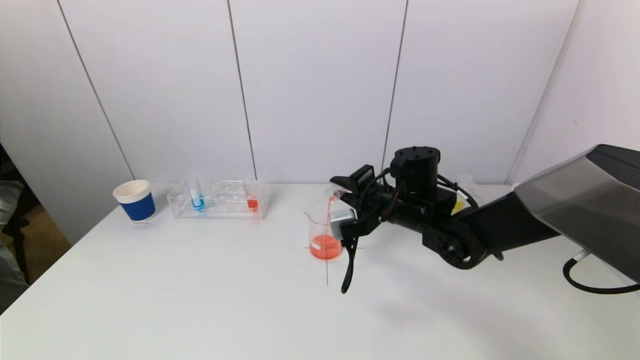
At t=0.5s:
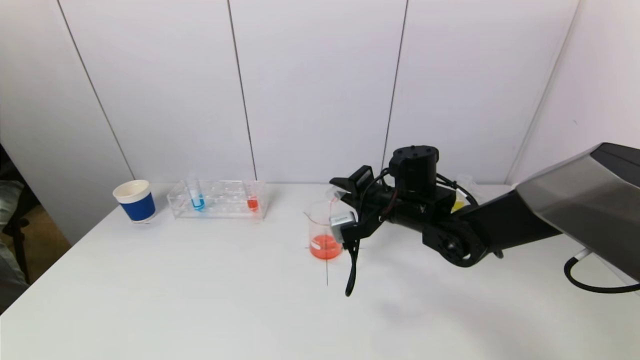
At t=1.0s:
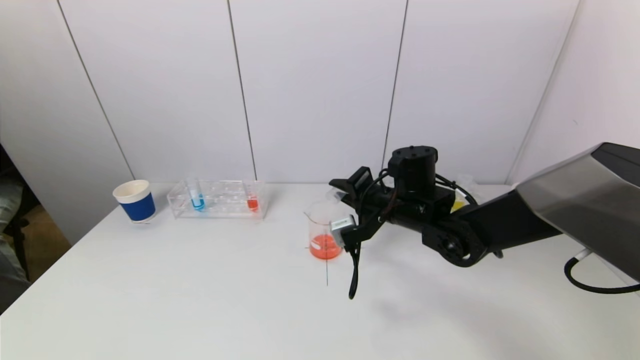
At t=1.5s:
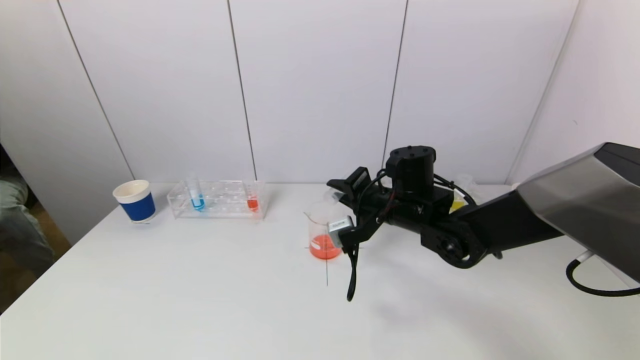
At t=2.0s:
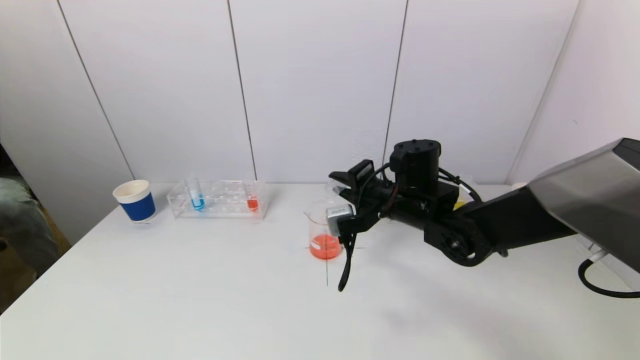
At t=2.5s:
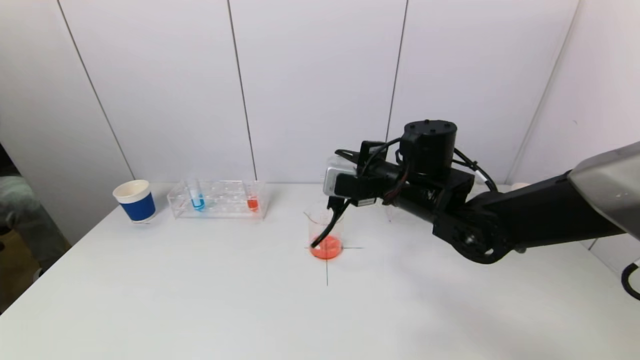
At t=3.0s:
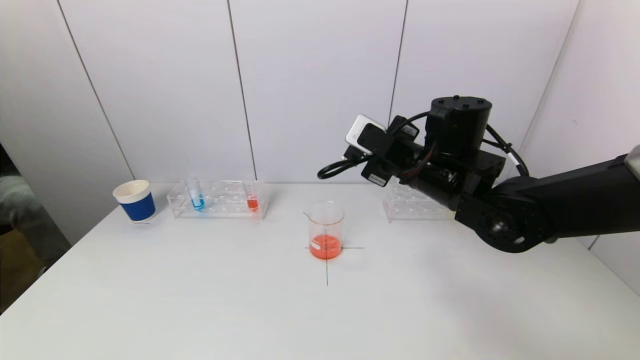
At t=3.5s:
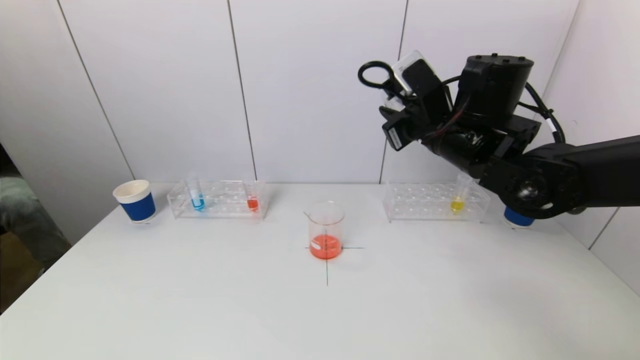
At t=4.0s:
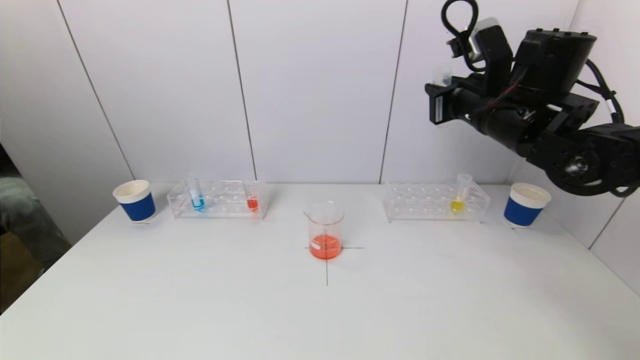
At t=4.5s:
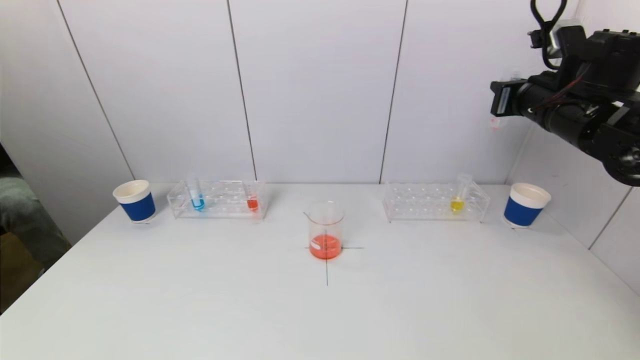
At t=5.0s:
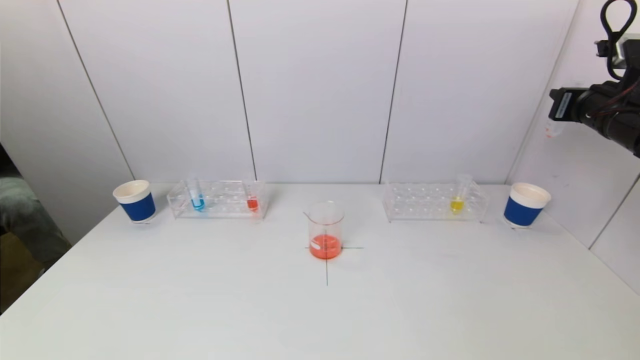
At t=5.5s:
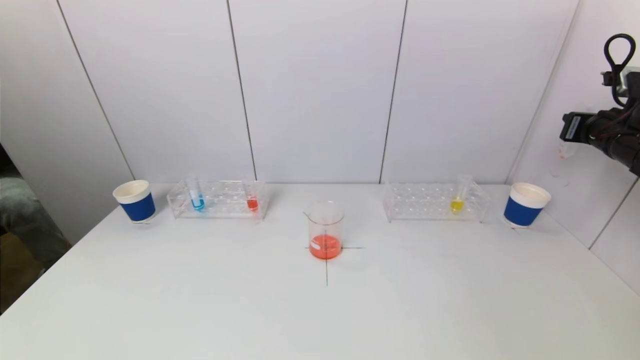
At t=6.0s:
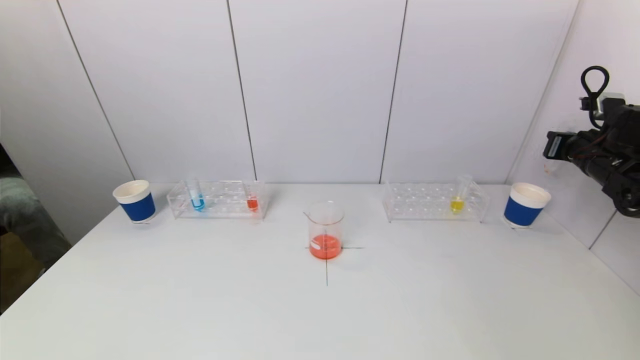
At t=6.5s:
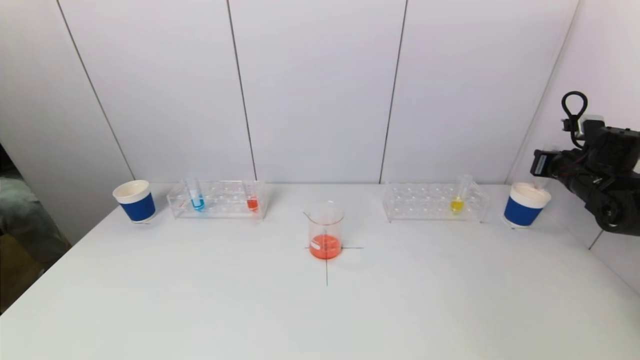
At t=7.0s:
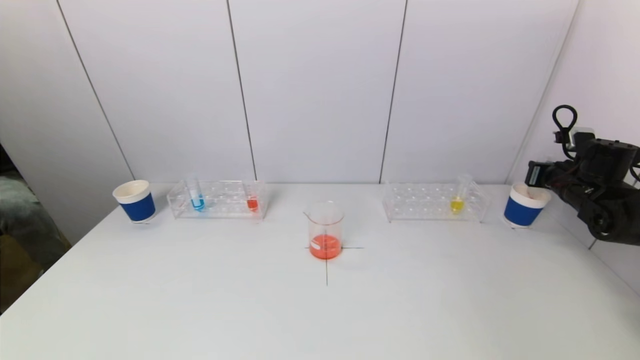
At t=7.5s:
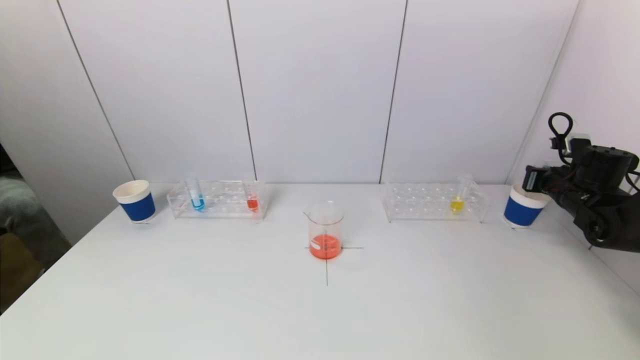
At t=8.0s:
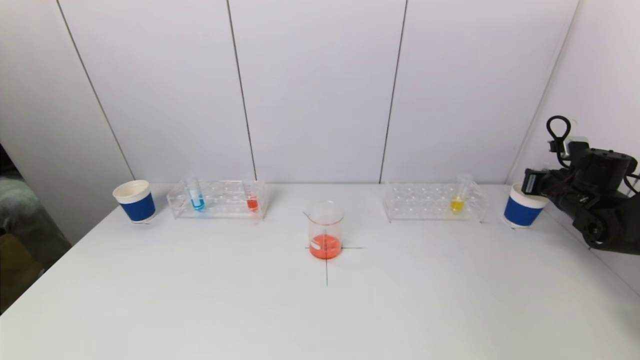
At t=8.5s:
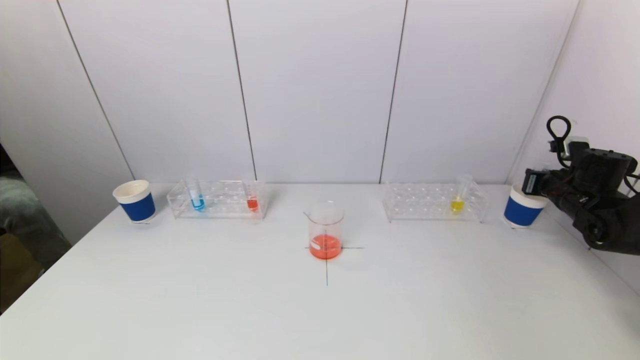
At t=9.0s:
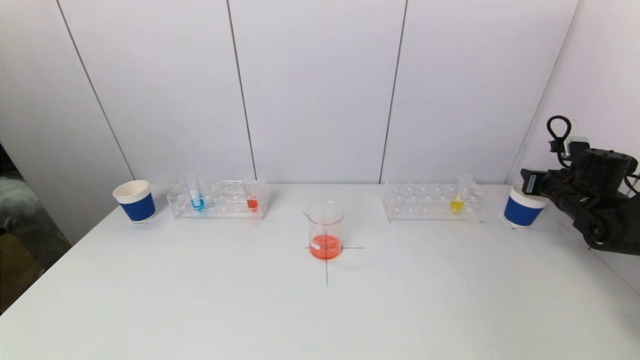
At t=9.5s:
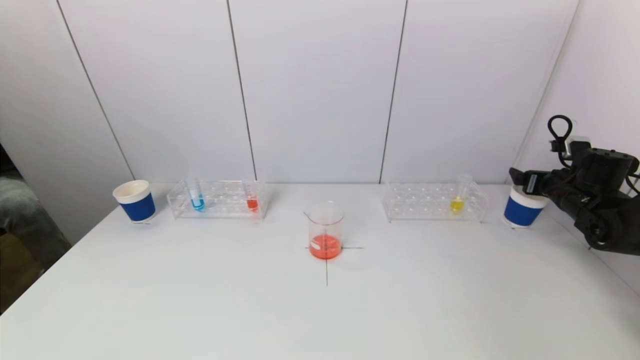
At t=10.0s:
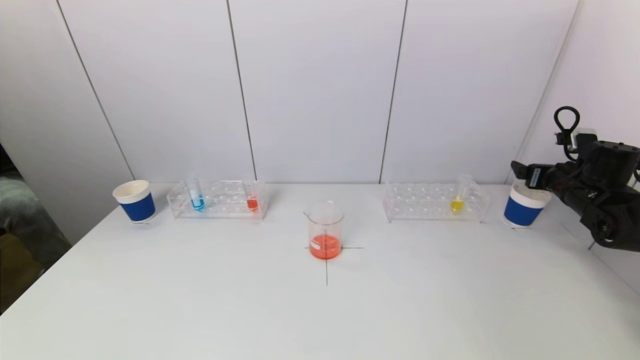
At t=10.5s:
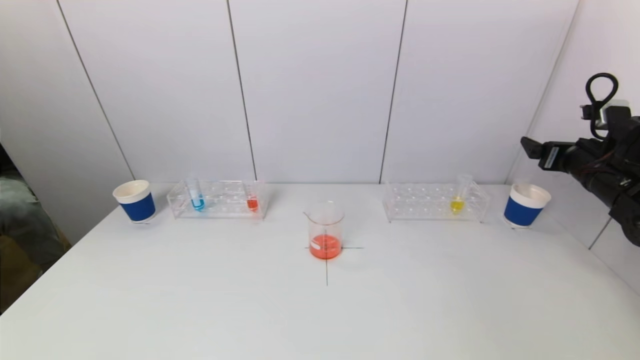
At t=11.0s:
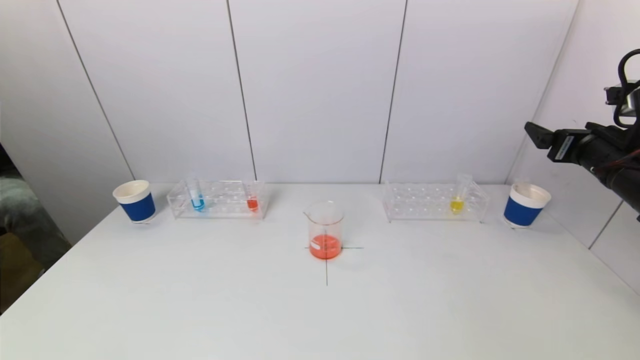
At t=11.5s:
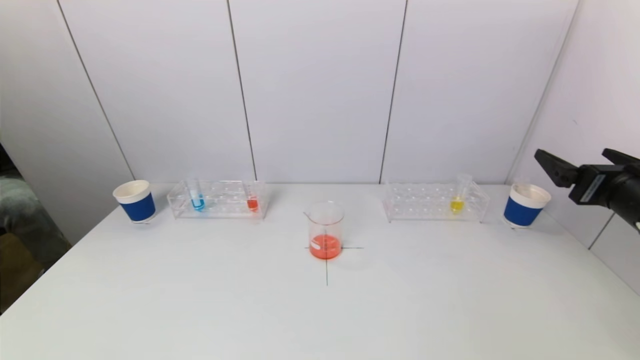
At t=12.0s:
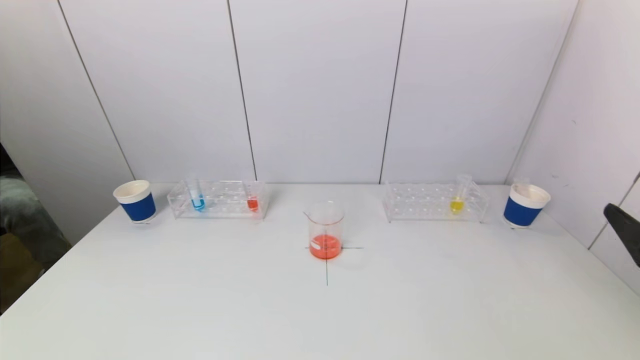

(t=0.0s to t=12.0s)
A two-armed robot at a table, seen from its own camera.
Task of the whole recording: pick up a test tube with pigment on left test tube rack and a test tube with pigment on right test tube rack by grippers and pour them into the beaker.
Step, t=2.0s - t=9.0s: Place the test tube into the paper cup with the right gripper.
t=0.0s - t=2.0s: The grippers make only small movements.
t=2.0s - t=4.0s: The right gripper shifts approximately 15 cm upward and to the right.
t=4.0s - t=6.0s: The right gripper travels to the right and downward by roughly 25 cm.
t=6.0s - t=8.0s: The right gripper shifts about 10 cm downward.
t=8.0s - t=10.0s: The right gripper opens.
t=10.0s - t=12.0s: The right gripper travels backward by roughly 30 cm.

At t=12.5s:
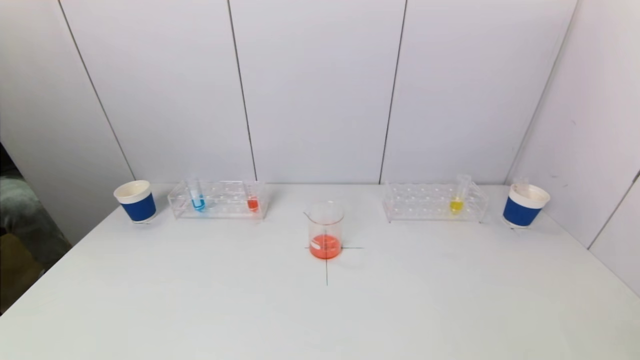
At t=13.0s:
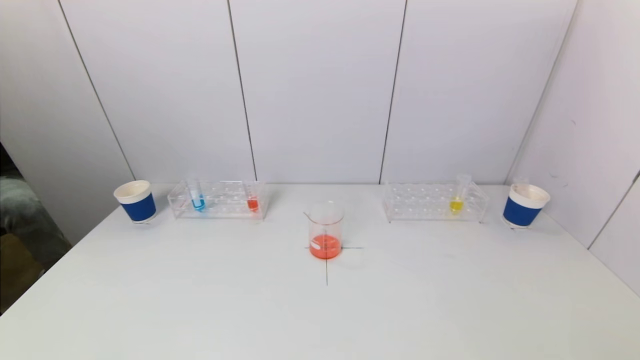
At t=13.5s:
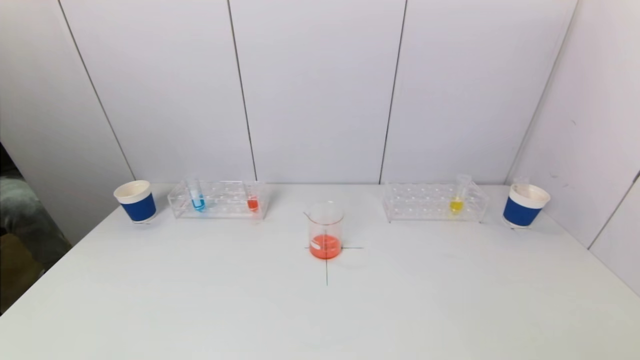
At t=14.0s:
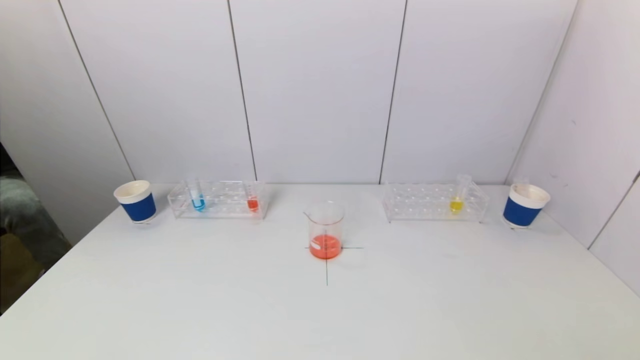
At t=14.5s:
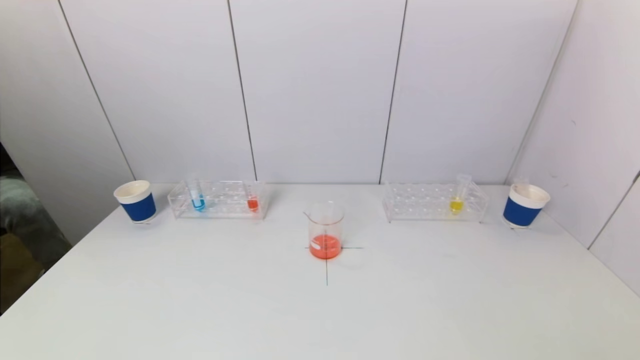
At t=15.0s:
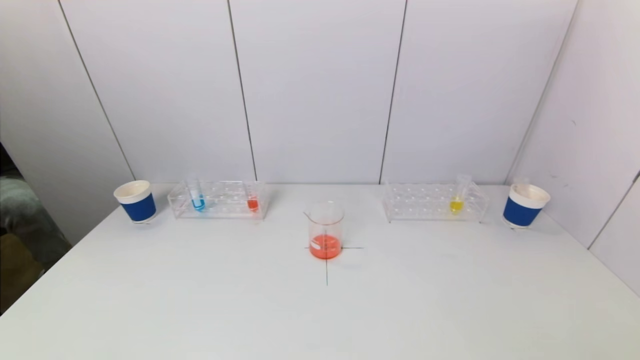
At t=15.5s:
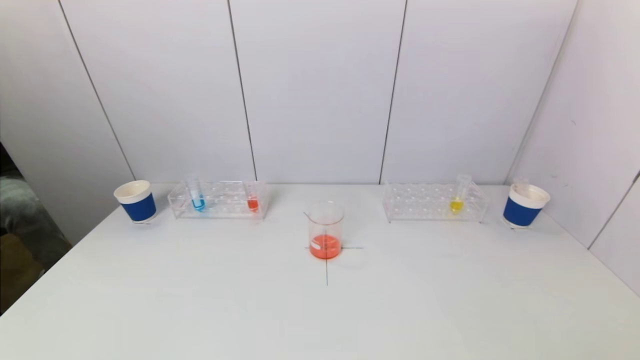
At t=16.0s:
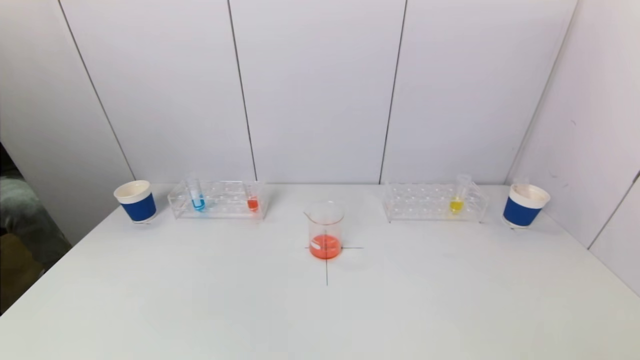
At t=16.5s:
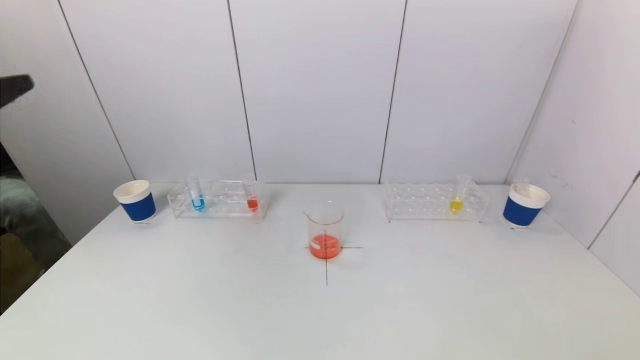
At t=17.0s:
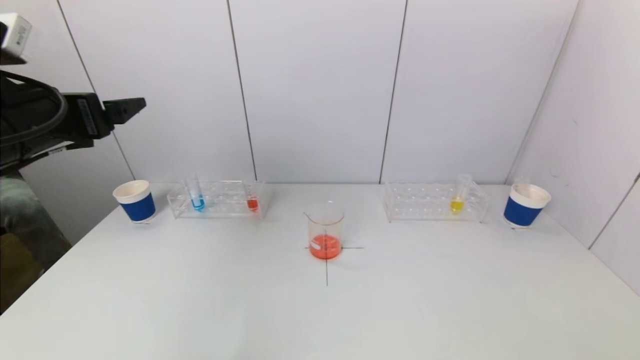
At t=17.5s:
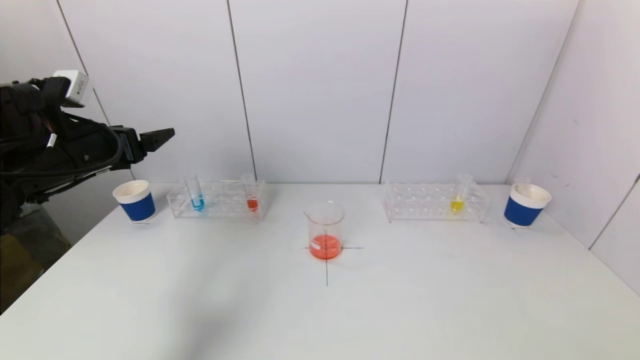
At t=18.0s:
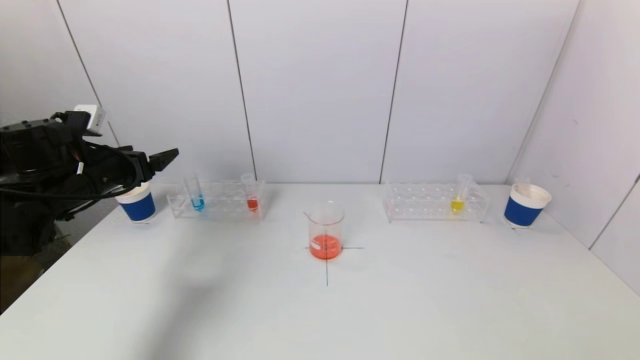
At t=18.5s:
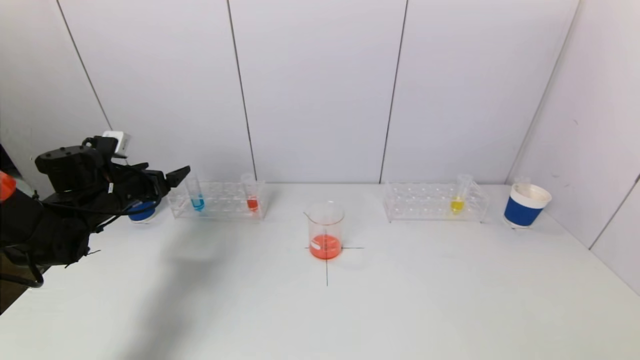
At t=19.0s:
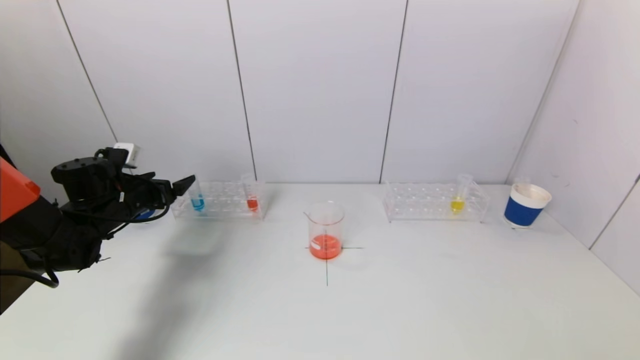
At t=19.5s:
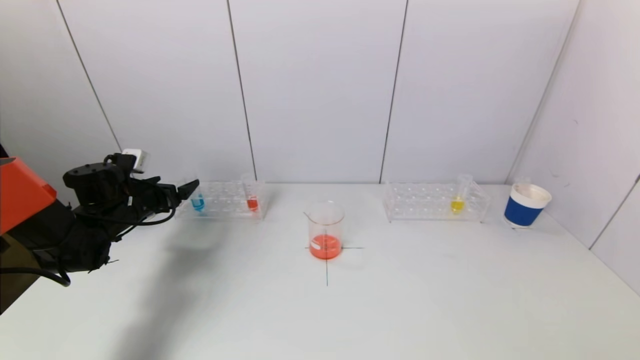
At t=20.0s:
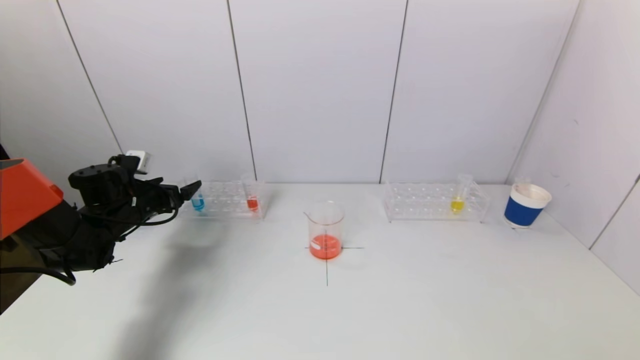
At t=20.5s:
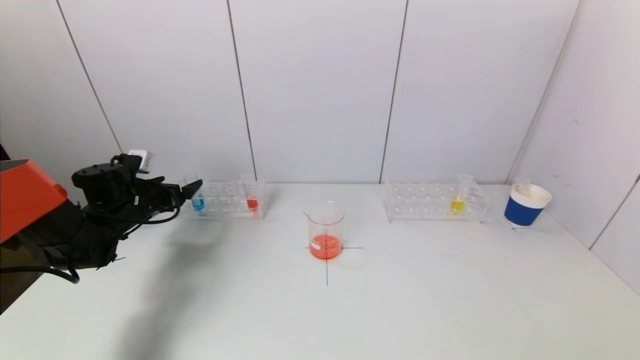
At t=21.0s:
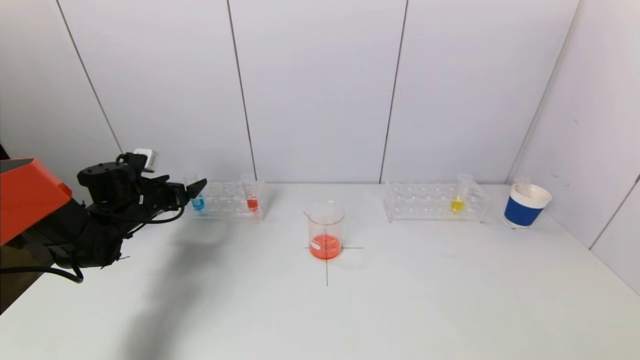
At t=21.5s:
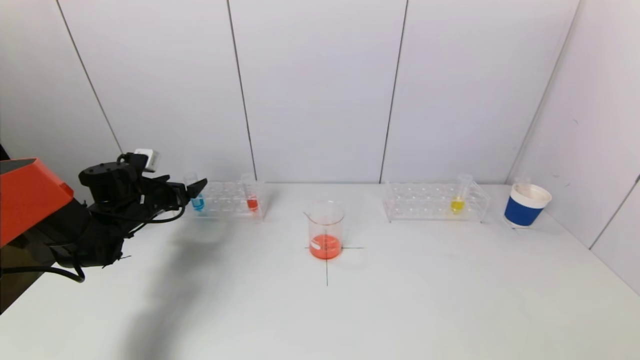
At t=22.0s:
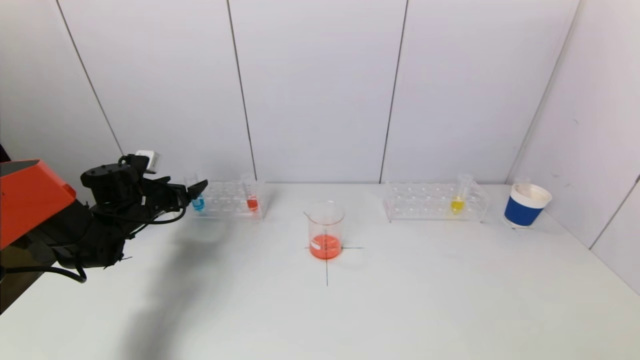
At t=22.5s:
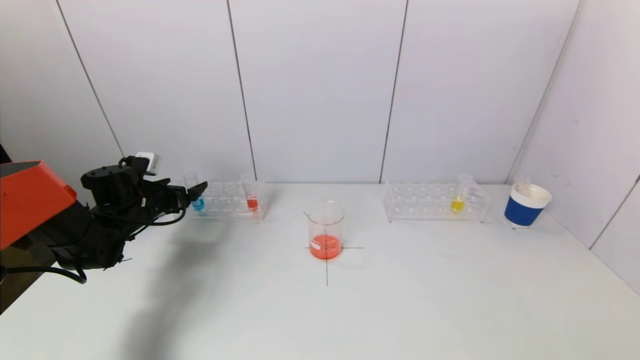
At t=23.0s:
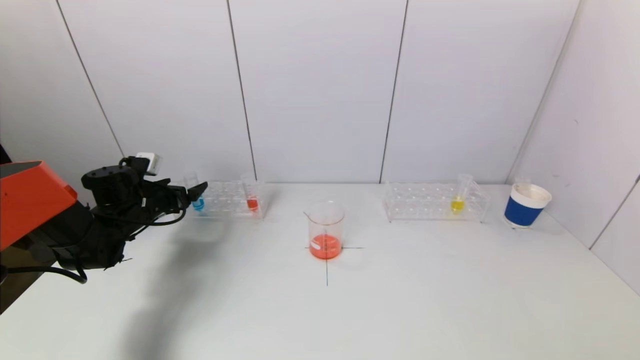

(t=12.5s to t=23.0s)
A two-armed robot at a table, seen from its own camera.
Task of the whole recording: pick up a test tube with pigment on left test tube rack and a test tube with pigment on right test tube rack by grippers and pour them into the beaker.
t=16.5s - t=19.0s: The left gripper is displaced forward and downward by roughly 35 cm.
t=19.0s - t=21.0s: There are only small adjustments of the grippers.
t=21.0s - t=23.0s: Both grippers stay about where they are.
